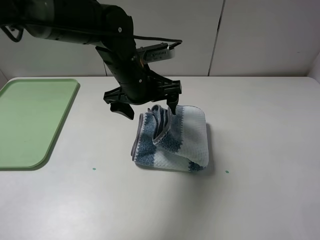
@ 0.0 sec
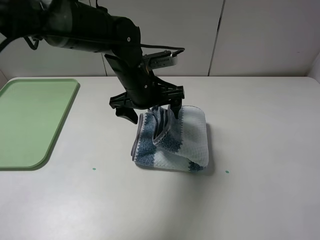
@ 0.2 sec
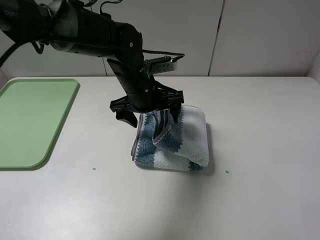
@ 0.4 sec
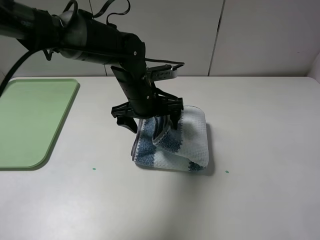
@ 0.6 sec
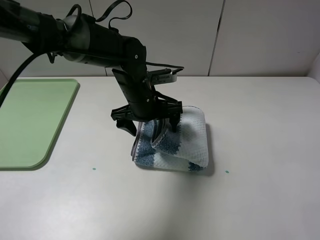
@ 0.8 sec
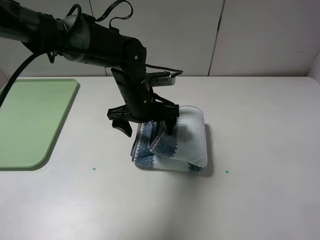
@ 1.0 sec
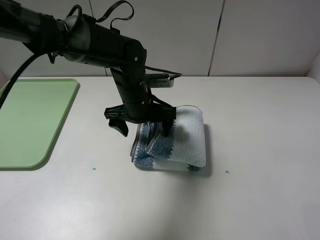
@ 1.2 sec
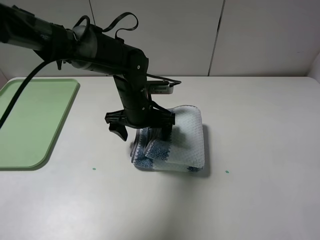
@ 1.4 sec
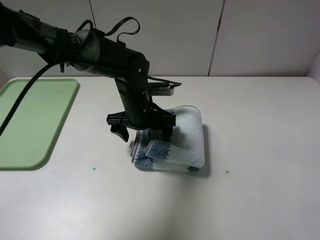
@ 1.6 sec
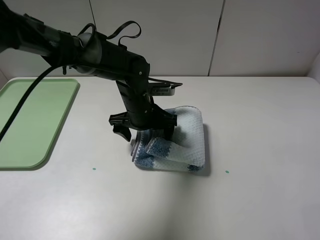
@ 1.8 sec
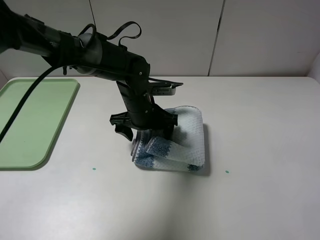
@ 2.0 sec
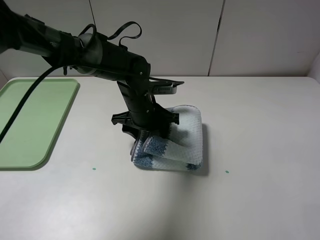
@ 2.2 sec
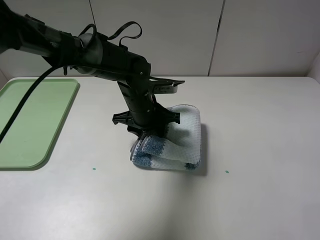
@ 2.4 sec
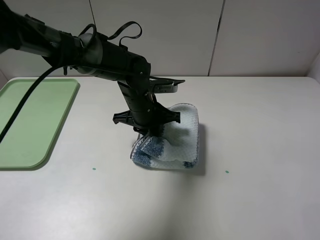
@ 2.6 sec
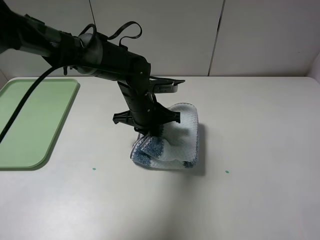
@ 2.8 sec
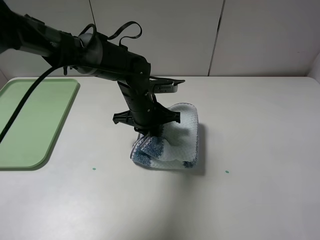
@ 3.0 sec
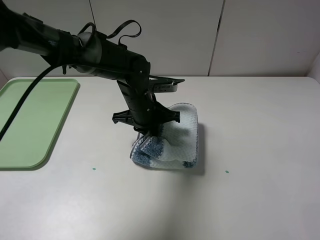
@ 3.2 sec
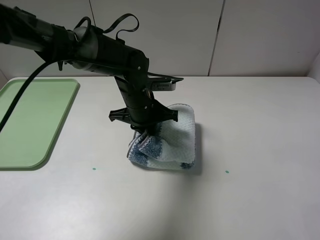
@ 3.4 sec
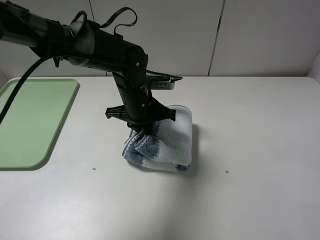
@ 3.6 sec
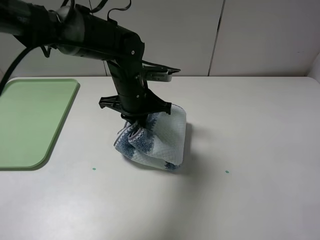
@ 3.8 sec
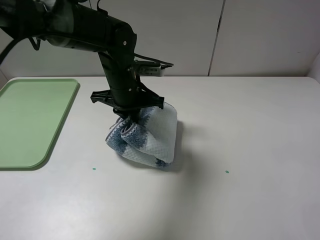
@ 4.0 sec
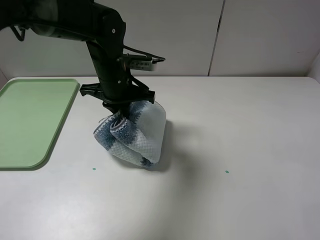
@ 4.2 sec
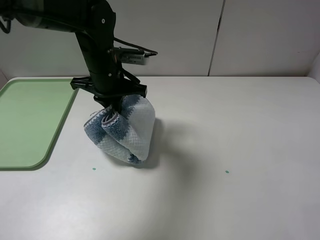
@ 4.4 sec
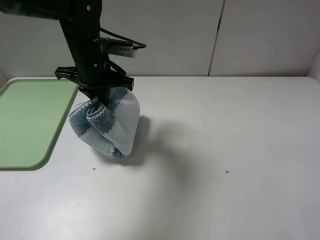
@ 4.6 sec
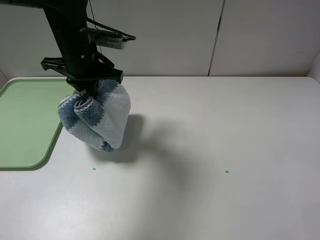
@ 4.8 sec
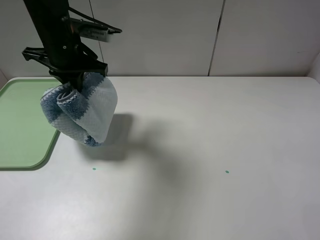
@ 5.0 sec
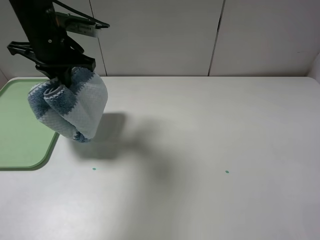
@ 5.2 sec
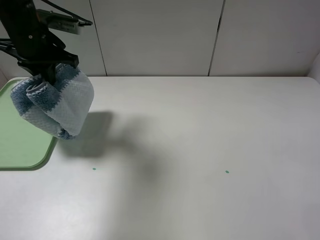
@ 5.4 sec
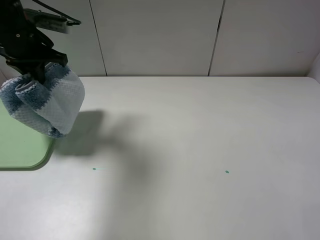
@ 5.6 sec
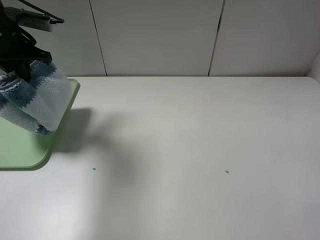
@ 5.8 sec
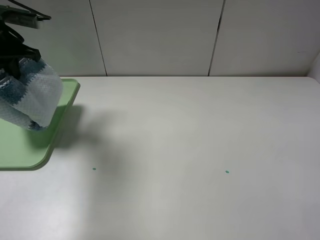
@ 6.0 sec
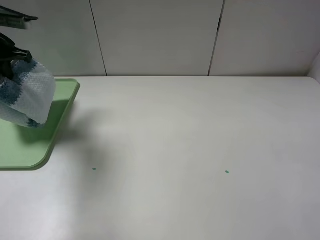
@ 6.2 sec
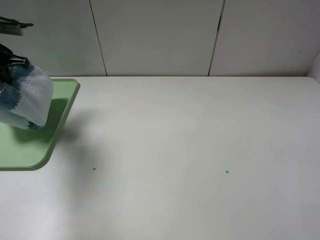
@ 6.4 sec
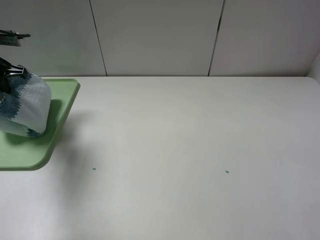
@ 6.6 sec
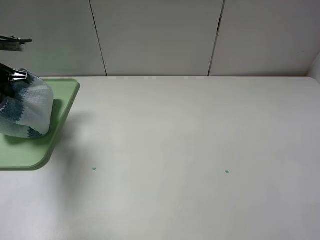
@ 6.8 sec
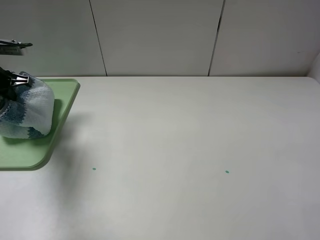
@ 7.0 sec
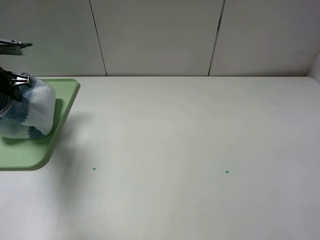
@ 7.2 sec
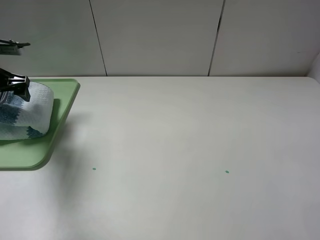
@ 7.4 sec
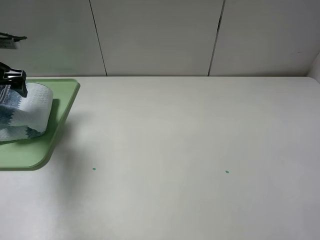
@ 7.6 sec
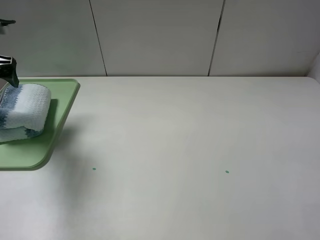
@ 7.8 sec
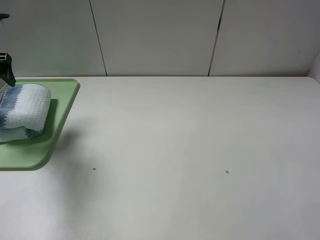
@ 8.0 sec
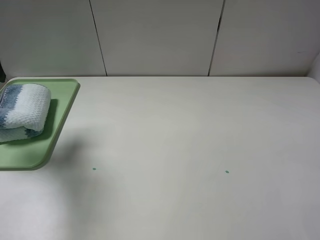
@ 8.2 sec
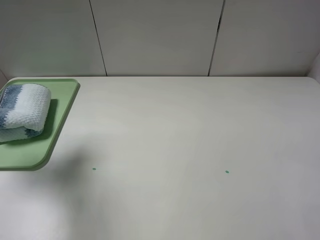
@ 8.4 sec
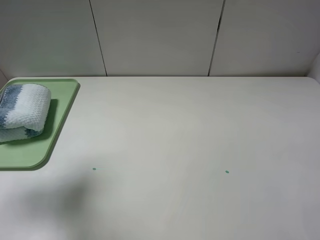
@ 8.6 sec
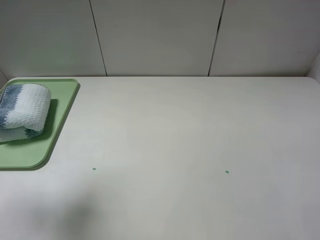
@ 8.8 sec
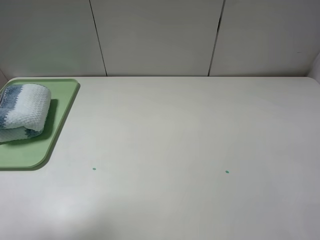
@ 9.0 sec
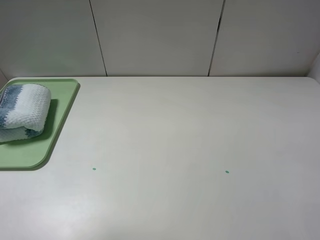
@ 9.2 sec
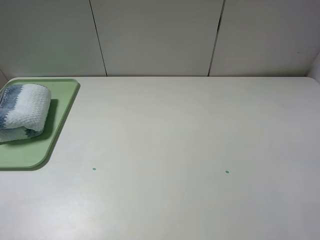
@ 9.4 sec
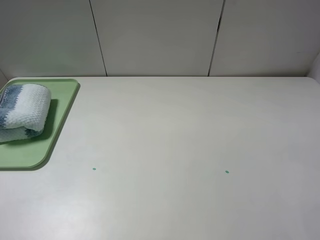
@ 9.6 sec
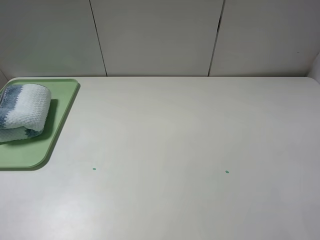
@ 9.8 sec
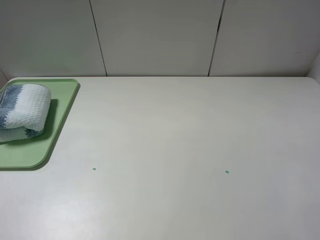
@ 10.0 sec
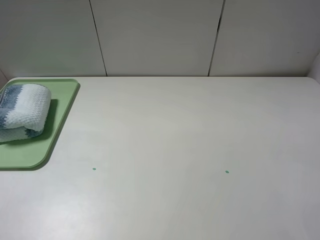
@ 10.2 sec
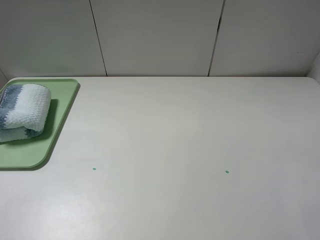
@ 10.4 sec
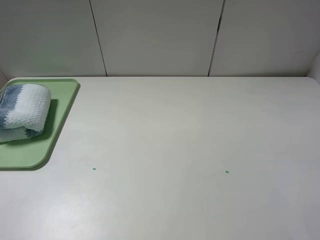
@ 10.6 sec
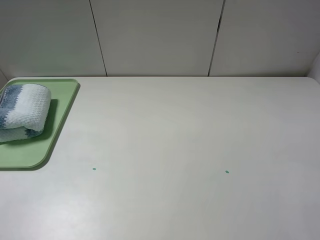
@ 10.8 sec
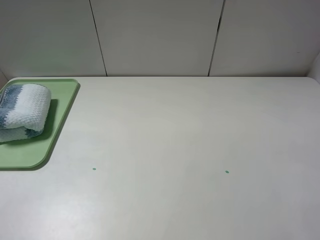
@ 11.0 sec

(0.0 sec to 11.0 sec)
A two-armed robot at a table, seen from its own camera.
Step, 0.0 sec - 2.6 sec: Grasp the blue white towel with the left gripper.
0.0 sec - 1.6 sec: The left gripper goes some 10 cm downward.
1.6 sec - 3.2 sec: The left gripper closes up.
3.2 sec - 4.8 sec: The left gripper goes roughly 15 cm upward and to the left.
4.8 sec - 6.2 sec: The left gripper goes about 20 cm to the left.
6.2 sec - 7.8 sec: The left gripper opens its fingers.
7.8 sec - 9.4 sec: The left gripper moves backward and upward, some 35 cm.
